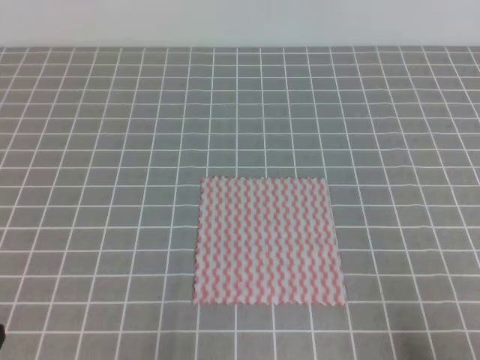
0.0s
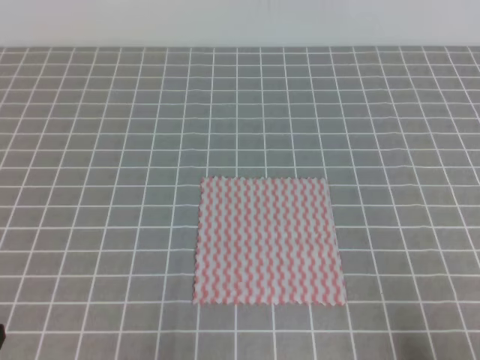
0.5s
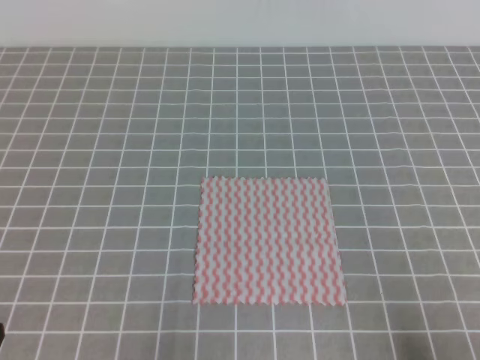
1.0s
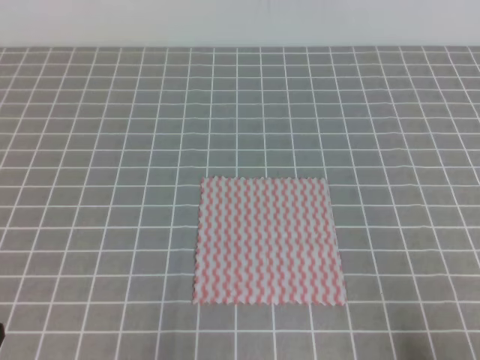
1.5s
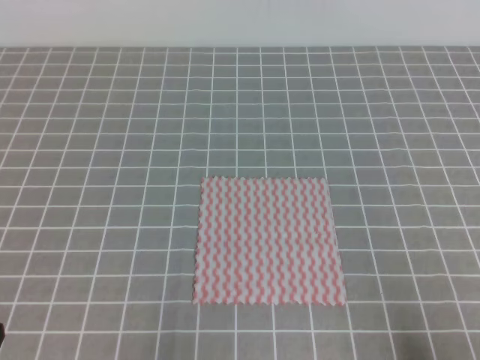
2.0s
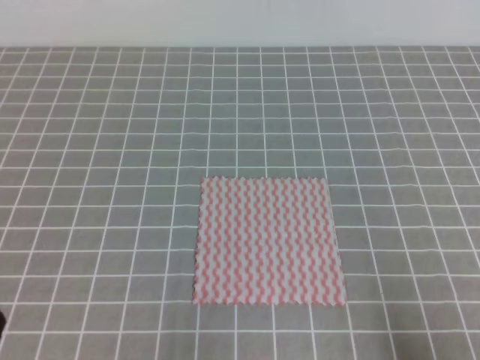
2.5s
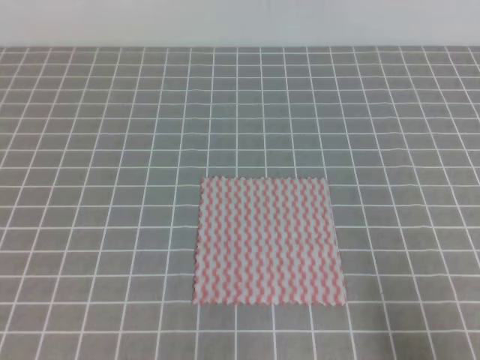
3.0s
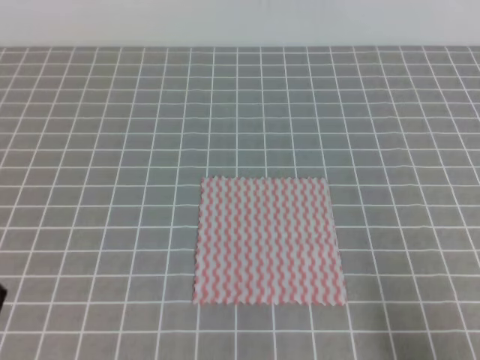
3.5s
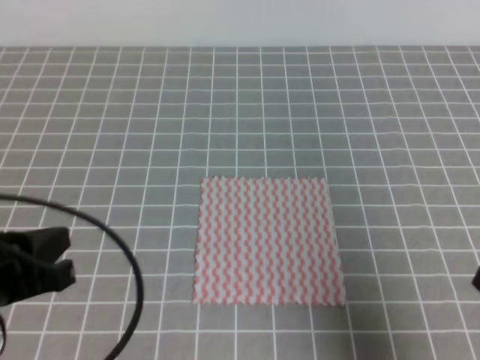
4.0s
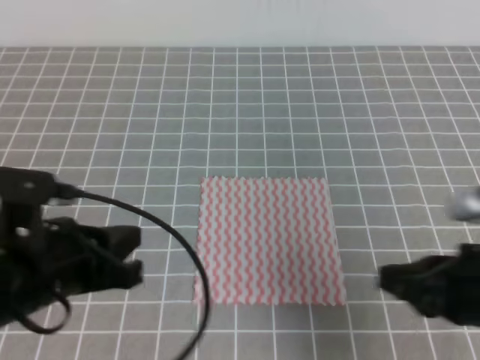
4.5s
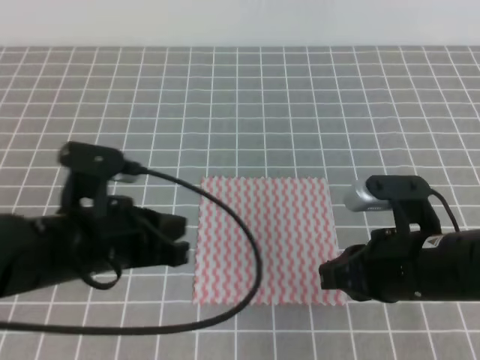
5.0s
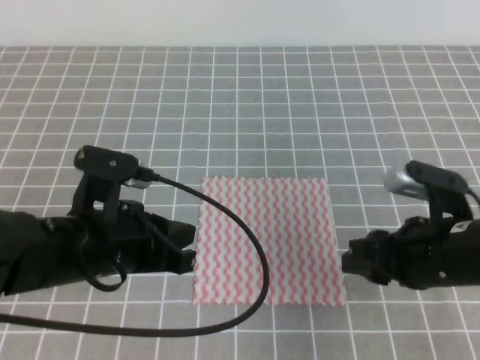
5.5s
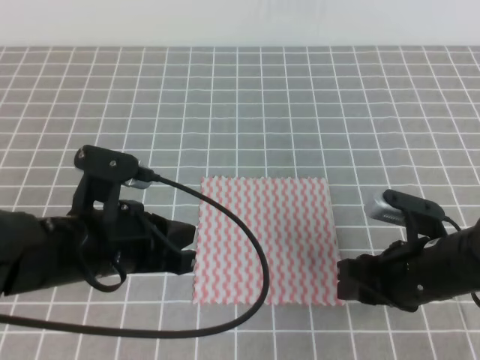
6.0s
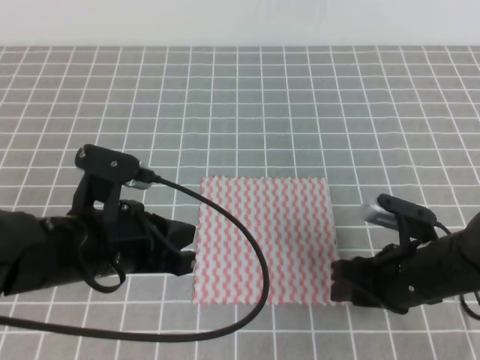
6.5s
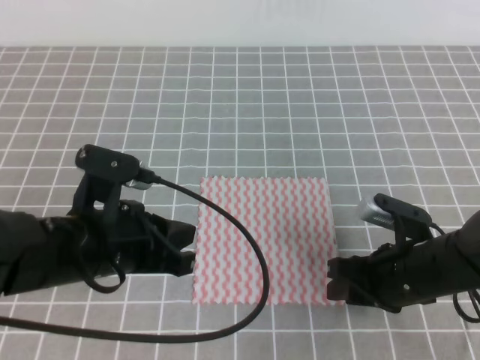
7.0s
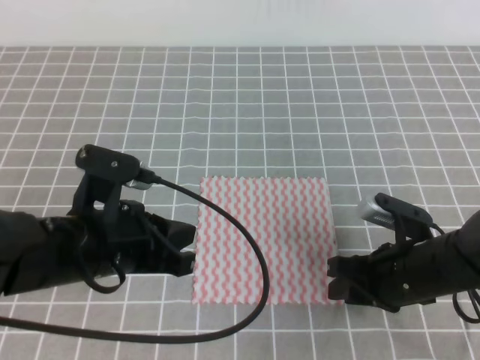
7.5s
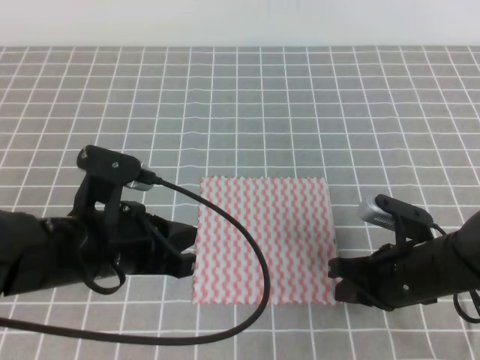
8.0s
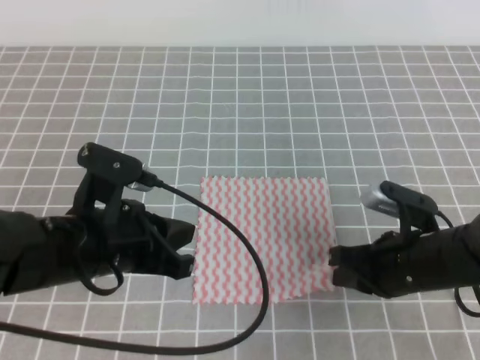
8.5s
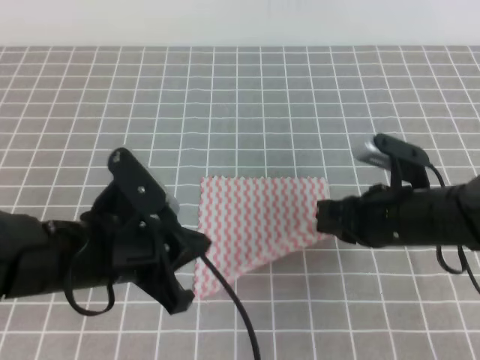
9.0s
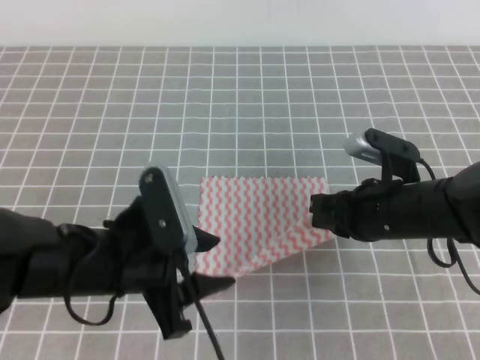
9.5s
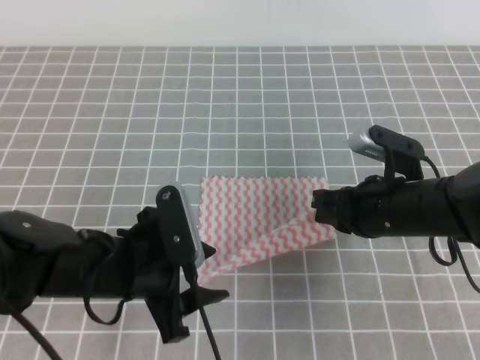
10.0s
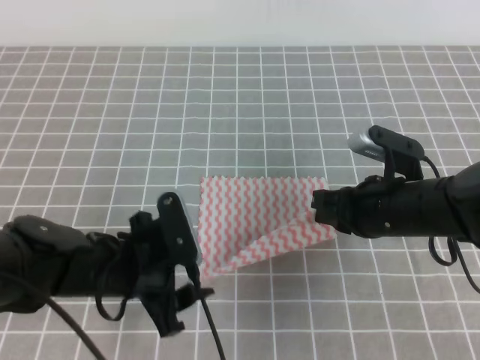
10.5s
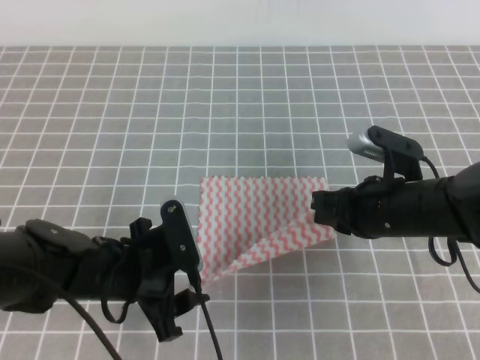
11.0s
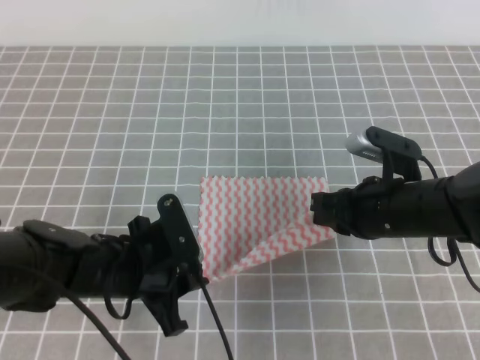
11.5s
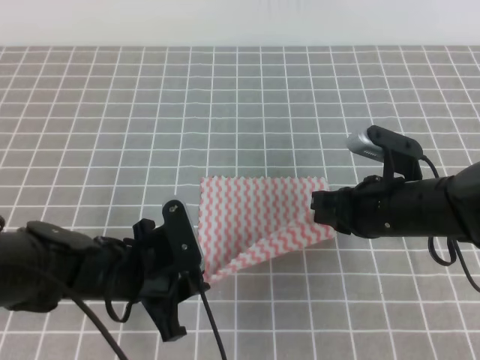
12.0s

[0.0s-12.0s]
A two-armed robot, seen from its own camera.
0.0s to 2.0s: Neither gripper changes place.
2.0s to 4.0s: The right gripper shifts roughly 5 cm upward. The left gripper goes roughly 10 cm forward and upward.
4.0s to 6.0s: The right gripper heads forward, to the left and downward, covering approximately 20 cm, and opens its fingers; the left gripper goes about 10 cm to the right and forward.
6.0s to 8.0s: The right gripper closes up.
8.0s to 10.0s: The left gripper opens its fingers, while the right gripper shifts by roughly 5 cm.
10.0s to 12.0s: The left gripper closes its fingers.

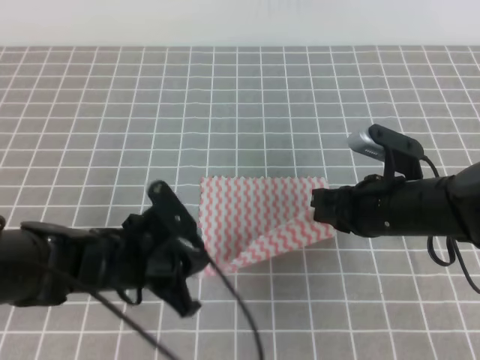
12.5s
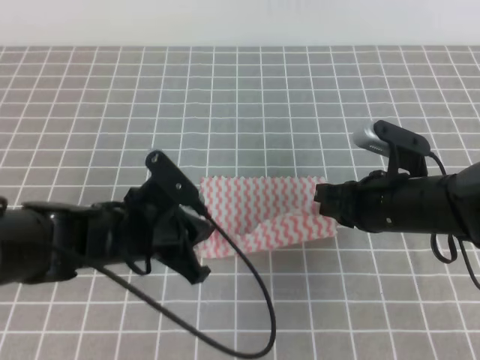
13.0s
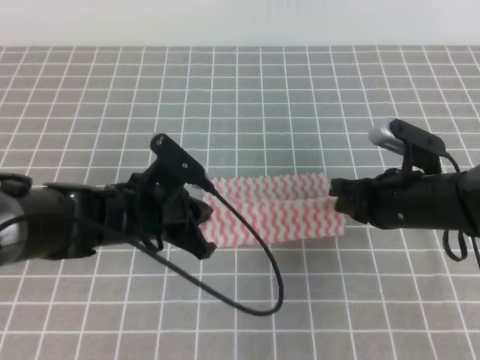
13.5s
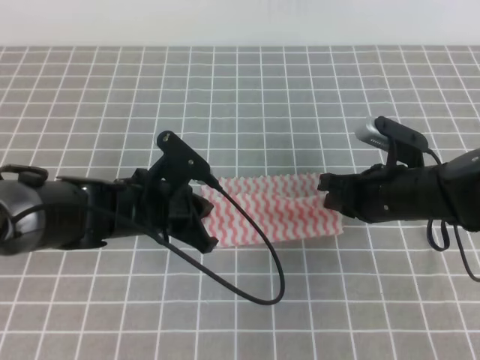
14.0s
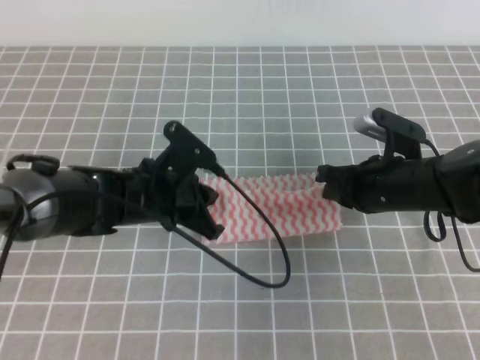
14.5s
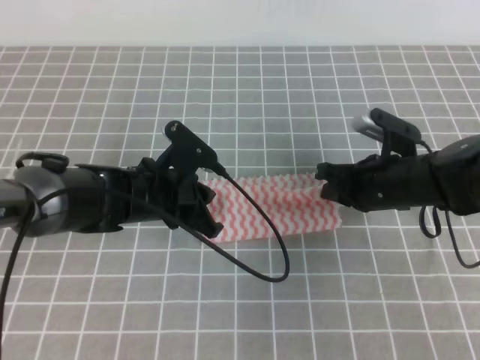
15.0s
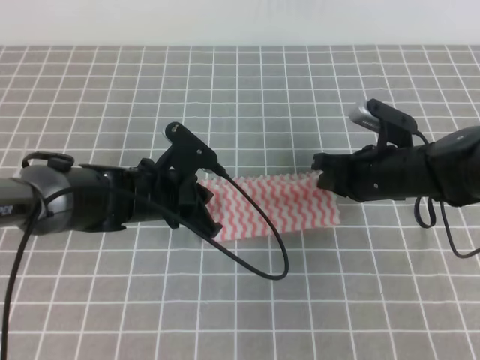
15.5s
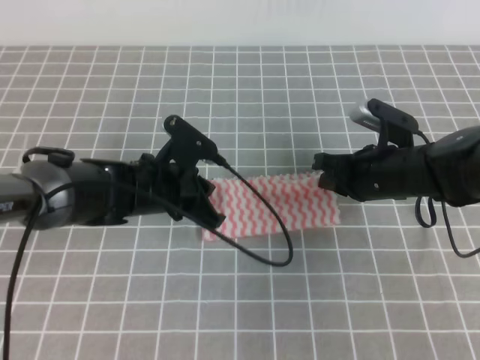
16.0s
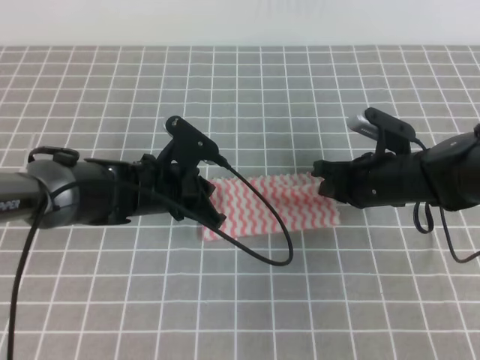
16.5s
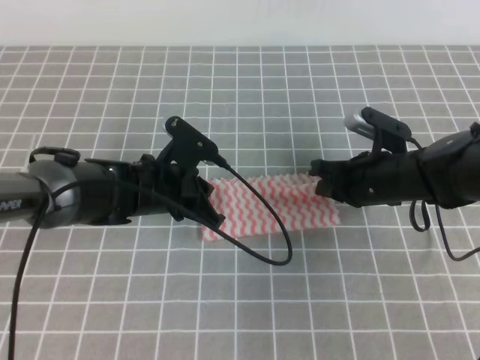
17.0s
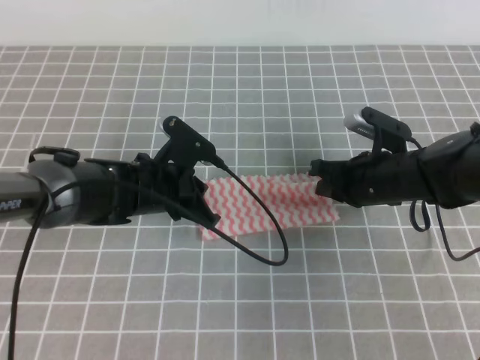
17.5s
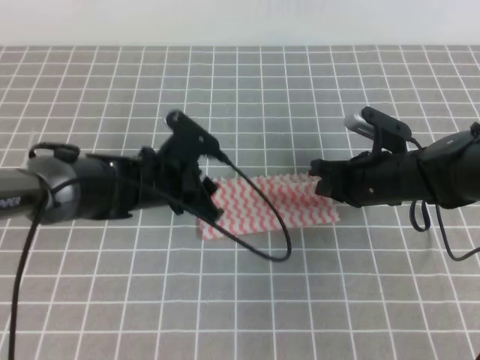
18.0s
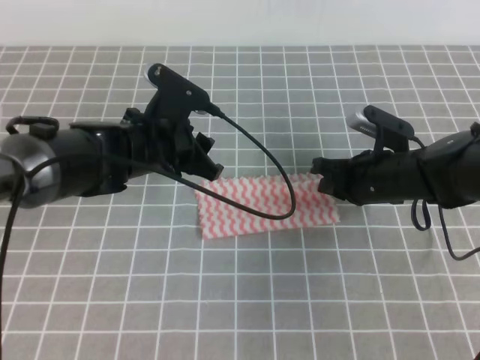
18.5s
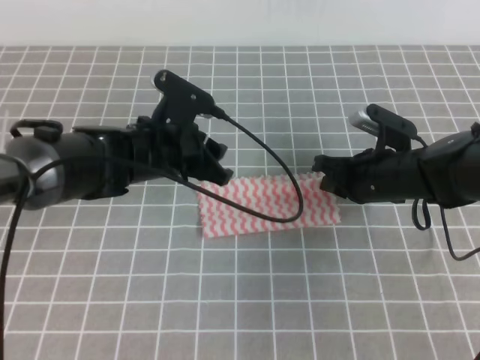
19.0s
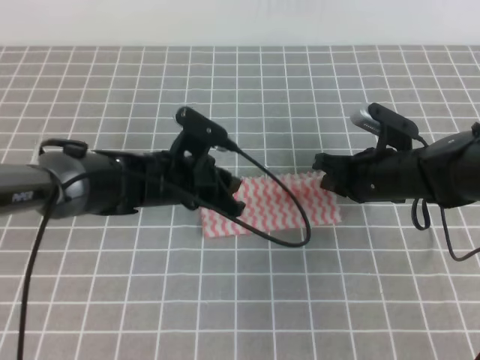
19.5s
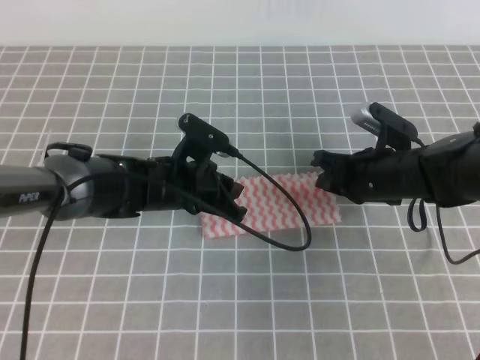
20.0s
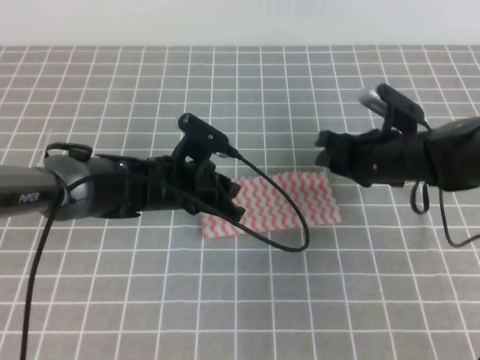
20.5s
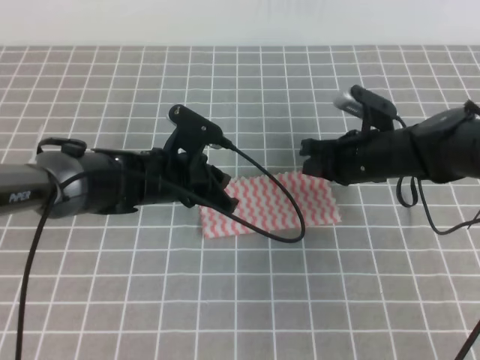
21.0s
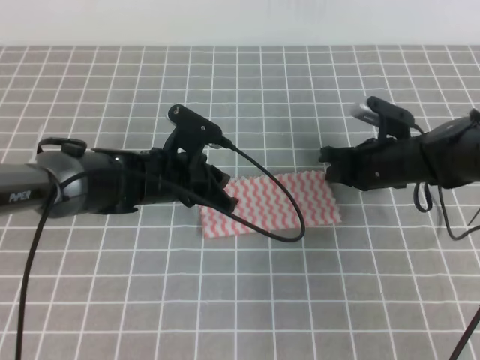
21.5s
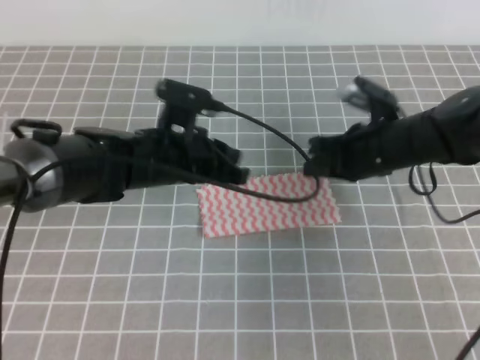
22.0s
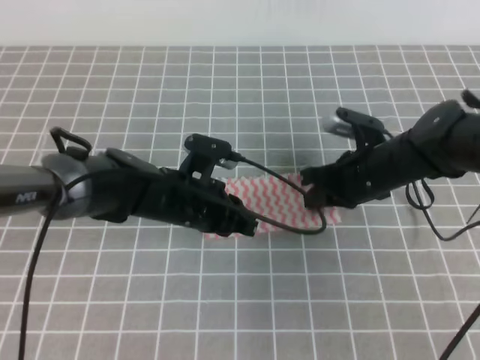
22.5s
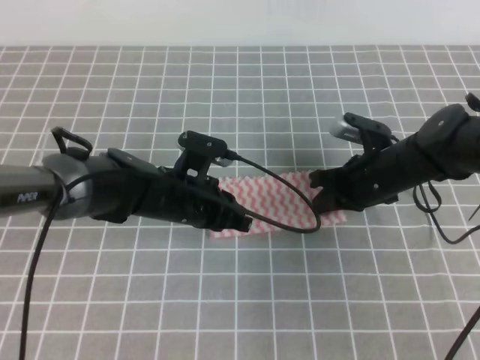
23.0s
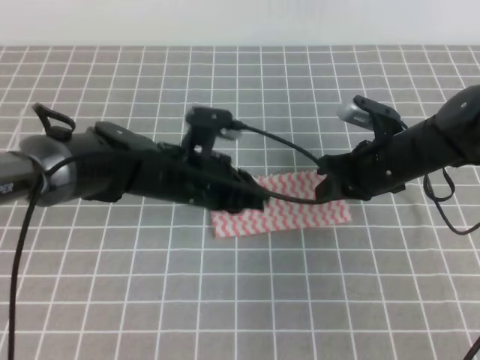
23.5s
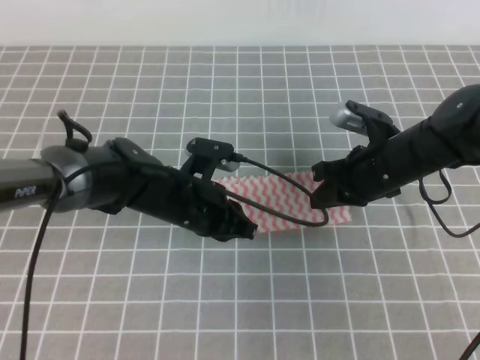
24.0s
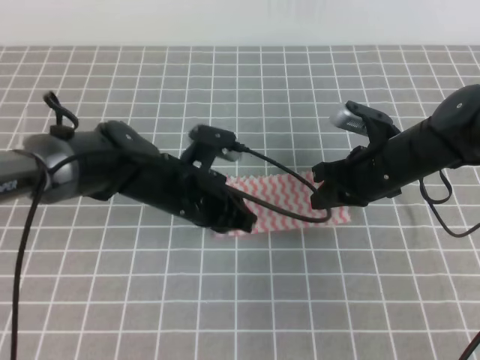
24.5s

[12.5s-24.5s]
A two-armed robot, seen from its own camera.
12.5s to 14.5s: The left gripper shifts approximately 10 cm forward.
14.5s to 16.5s: The grippers make only small movements.
16.5s to 18.5s: The left gripper travels upward by some 5 cm, and opens.
18.5s to 20.5s: The left gripper goes roughly 5 cm downward, and closes. Meanwhile the right gripper opens its fingers.
20.5s to 22.5s: The right gripper closes its fingers.
22.5s to 24.5s: The grippers move only a little.

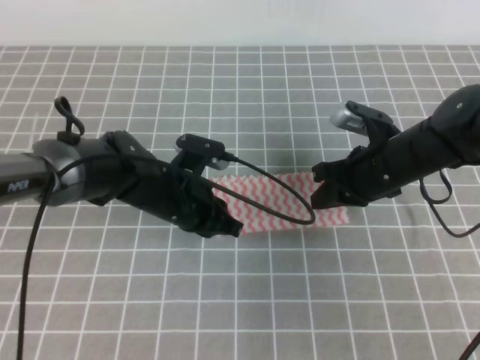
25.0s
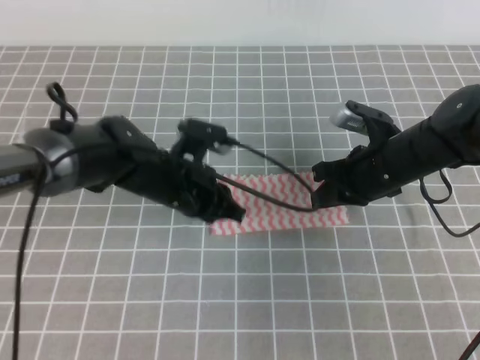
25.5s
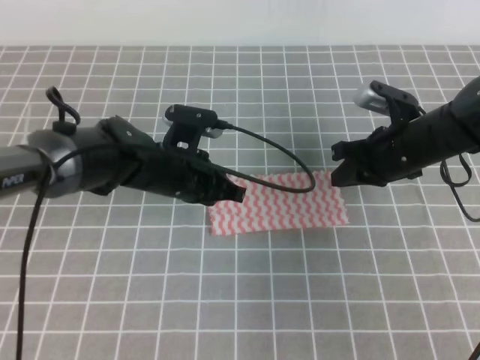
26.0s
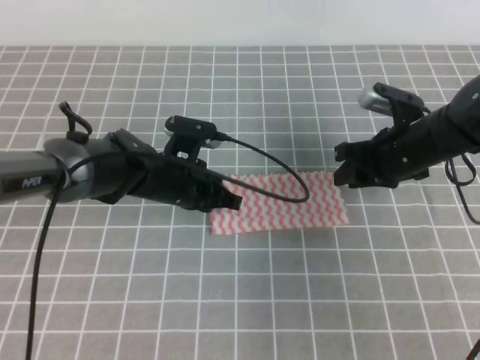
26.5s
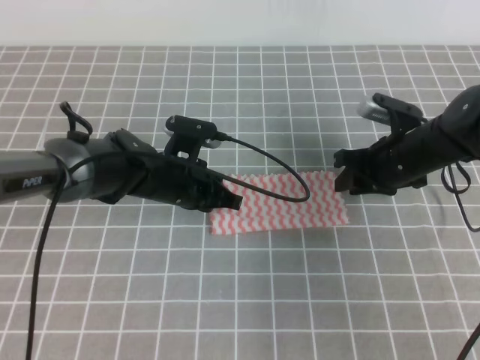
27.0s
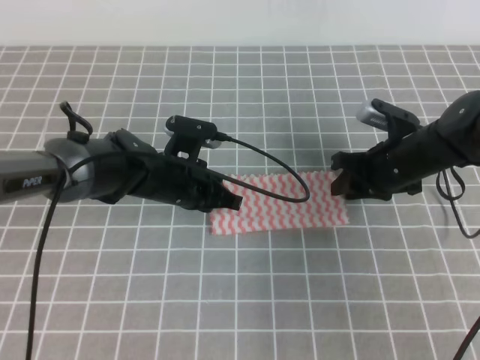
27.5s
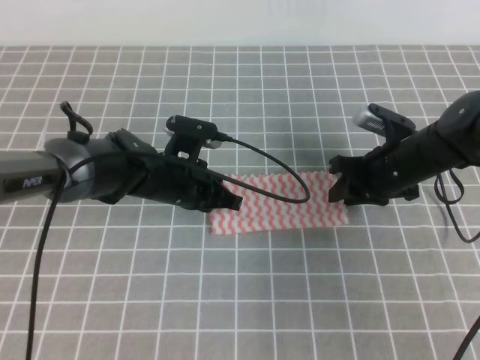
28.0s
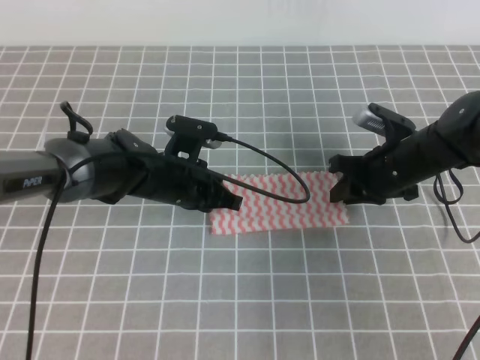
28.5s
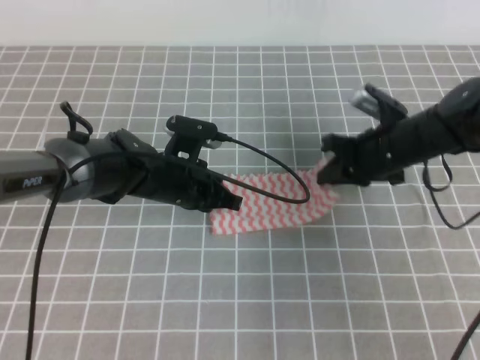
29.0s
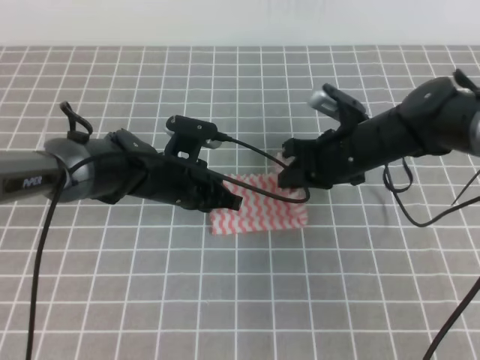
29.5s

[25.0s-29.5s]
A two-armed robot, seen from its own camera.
25.0s to 27.0s: The right gripper opens.
27.0s to 29.5s: The right gripper moves to the left, roughly 5 cm, and closes.
